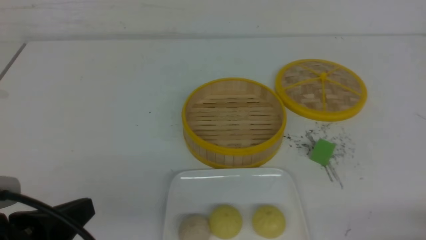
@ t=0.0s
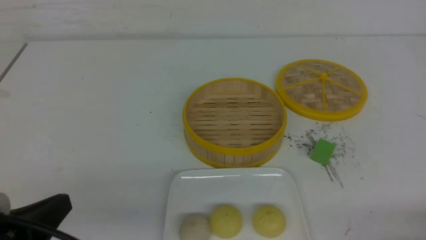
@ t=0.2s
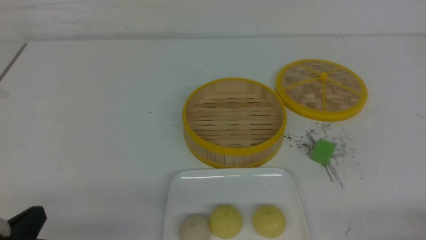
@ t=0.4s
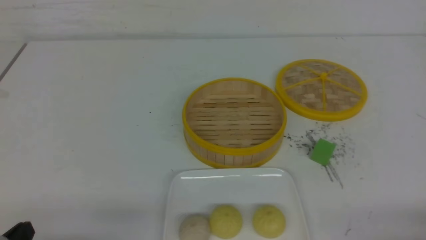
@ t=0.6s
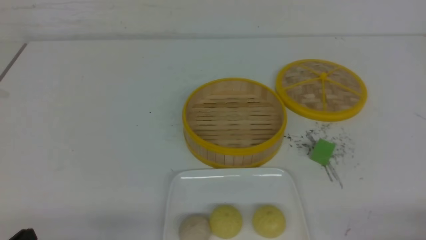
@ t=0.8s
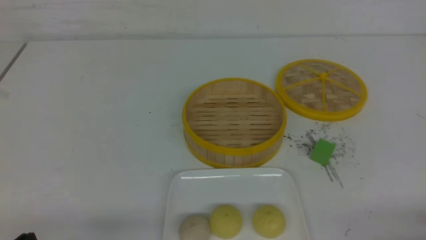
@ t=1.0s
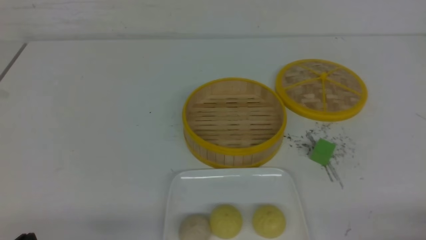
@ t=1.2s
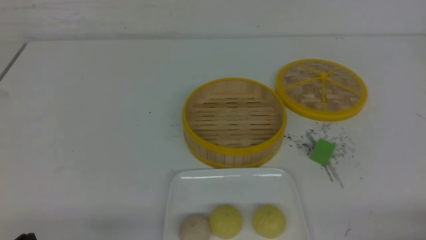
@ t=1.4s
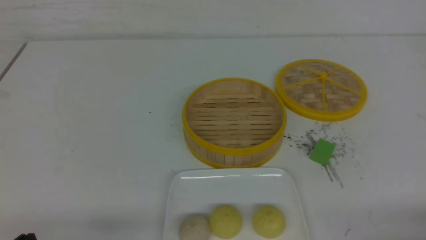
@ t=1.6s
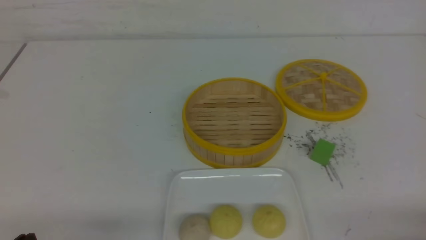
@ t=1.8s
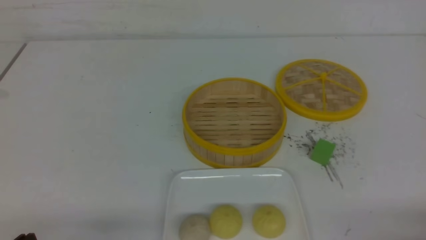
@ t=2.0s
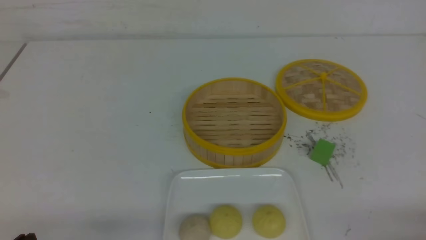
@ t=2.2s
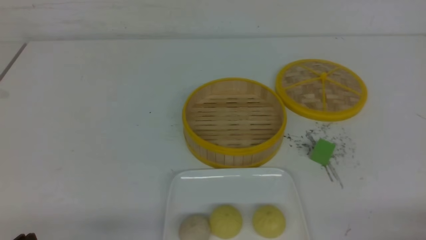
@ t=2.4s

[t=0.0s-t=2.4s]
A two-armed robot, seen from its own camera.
t=0.0s to t=1.2s: The left gripper goes about 10 cm downward.
t=1.2s to t=2.4s: Neither gripper changes place.
